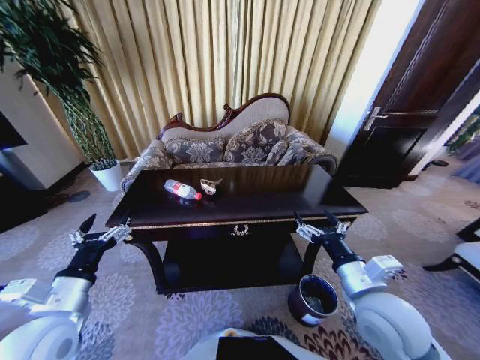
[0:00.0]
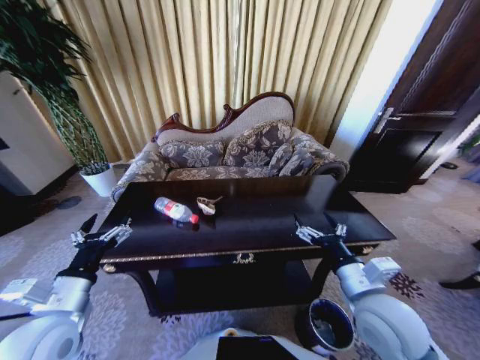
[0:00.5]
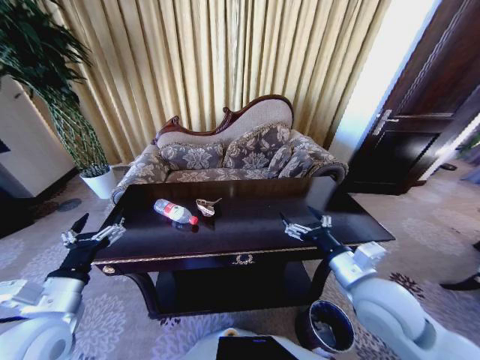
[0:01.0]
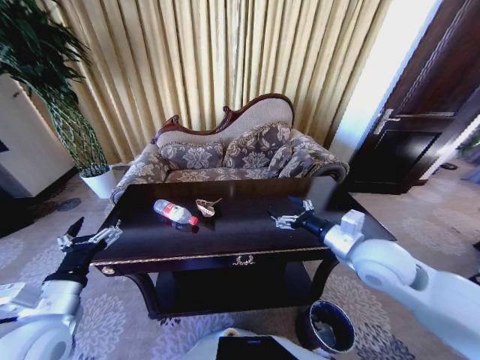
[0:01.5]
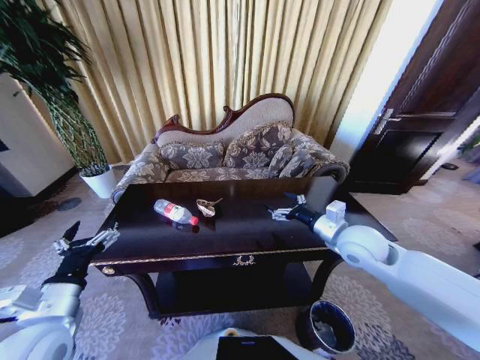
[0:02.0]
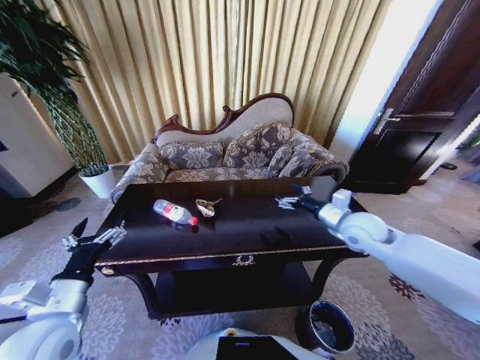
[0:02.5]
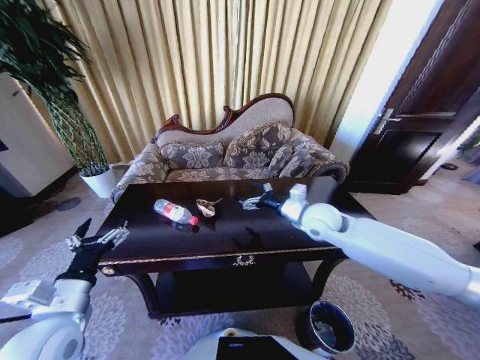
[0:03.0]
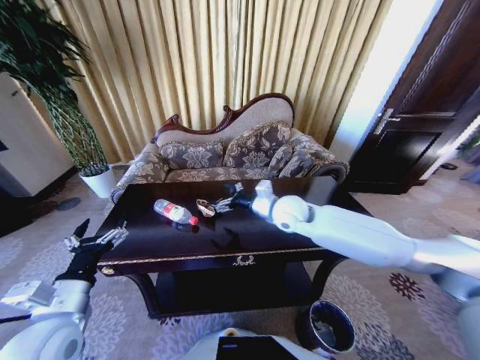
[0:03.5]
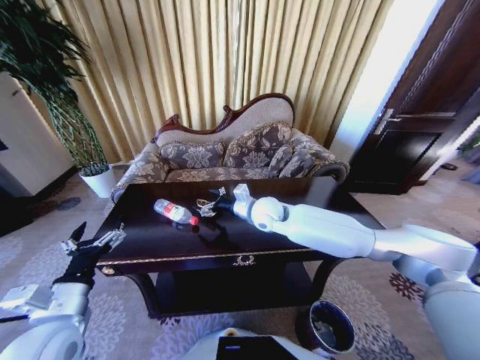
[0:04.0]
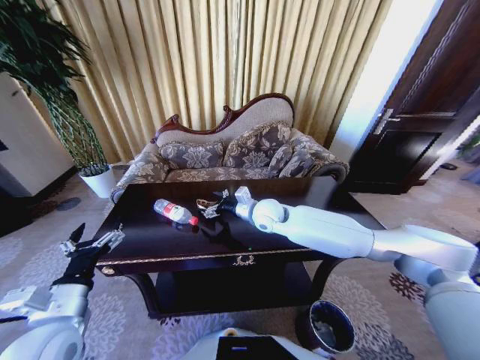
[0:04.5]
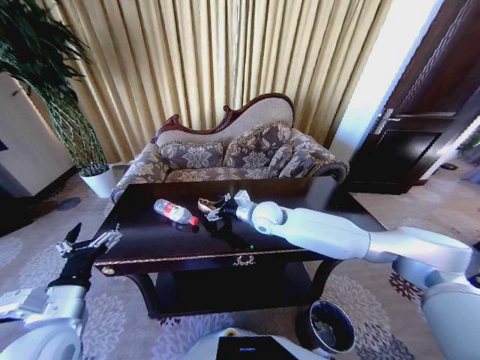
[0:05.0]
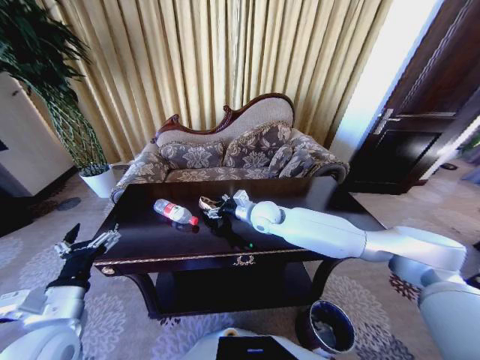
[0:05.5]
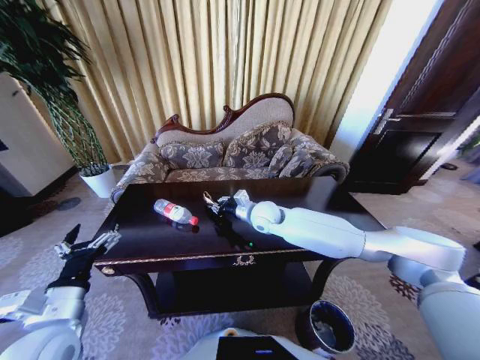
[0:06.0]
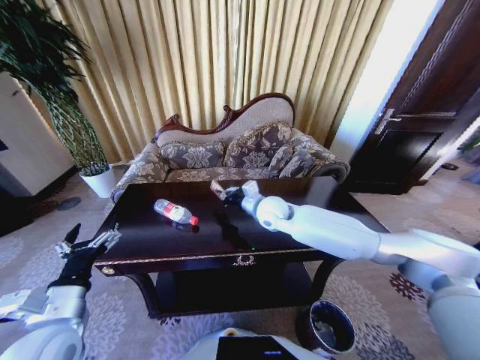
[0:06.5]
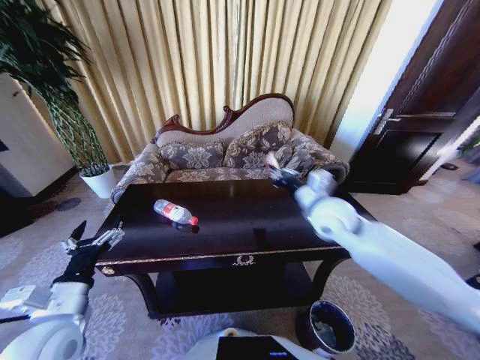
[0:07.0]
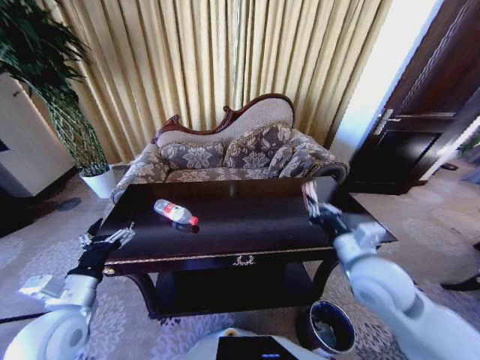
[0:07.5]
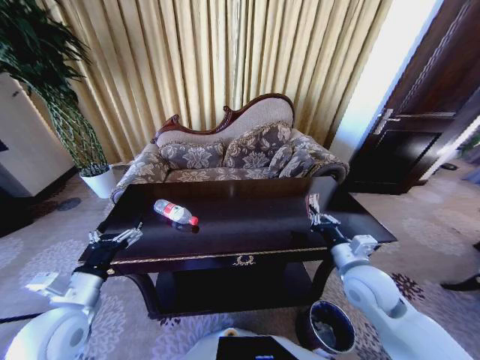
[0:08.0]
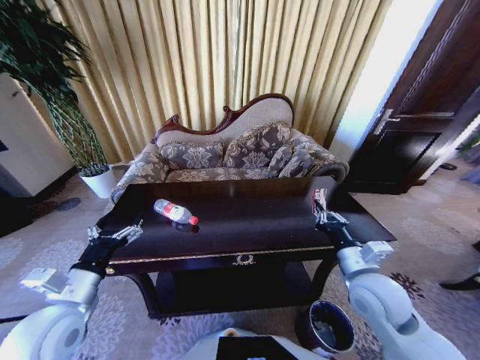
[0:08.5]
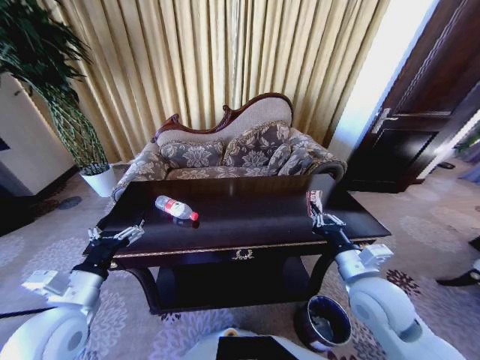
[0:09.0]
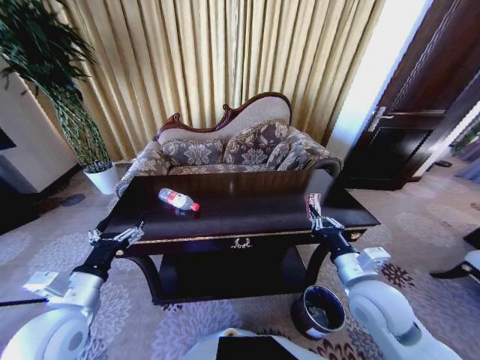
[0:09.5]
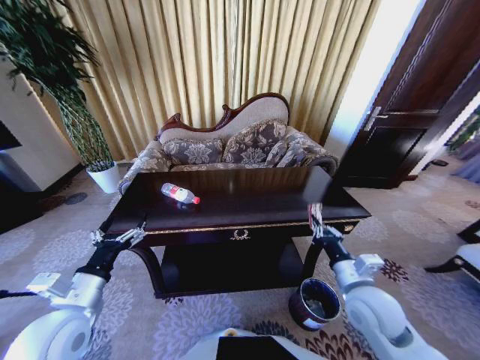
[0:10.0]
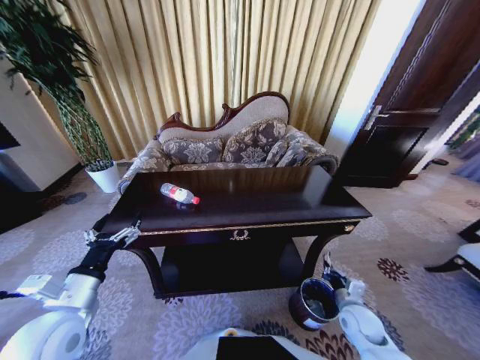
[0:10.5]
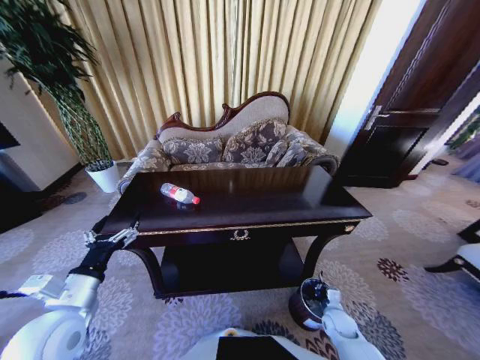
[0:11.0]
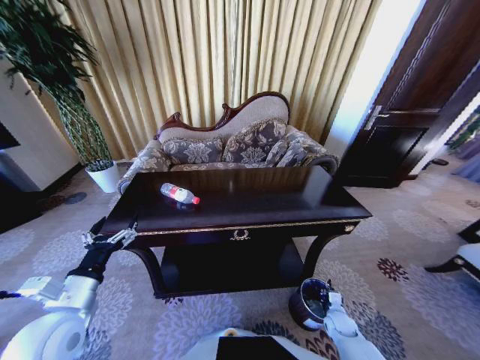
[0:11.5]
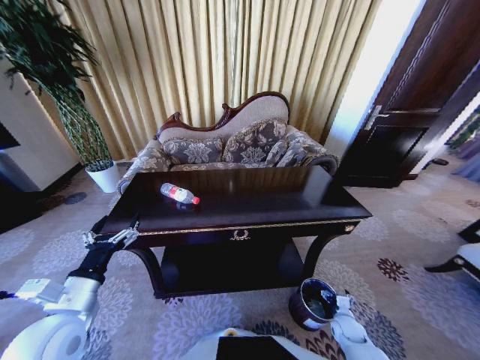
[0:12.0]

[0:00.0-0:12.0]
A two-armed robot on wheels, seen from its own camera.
Task of the whole recording: Move to the front of the table and place the trash on the table into the trash bin.
0:00.0 to 0:02.0: The right gripper heads forward, covering roughly 15 cm.
0:02.0 to 0:04.0: The right gripper travels to the left and forward by about 25 cm.
0:04.0 to 0:06.0: The right gripper closes up.
0:06.0 to 0:08.0: The right gripper moves backward and to the right, approximately 30 cm.
0:08.0 to 0:10.0: The right gripper ends up roughly 5 cm from where it was.
0:10.0 to 0:12.0: The right gripper heads downward, covering some 30 cm, and opens up.

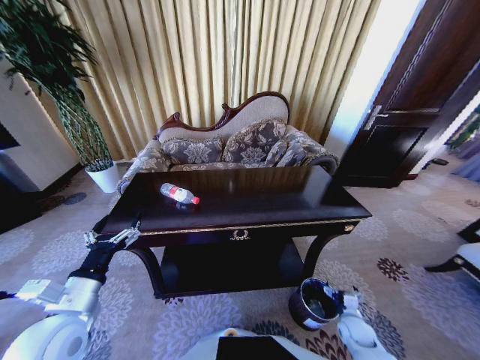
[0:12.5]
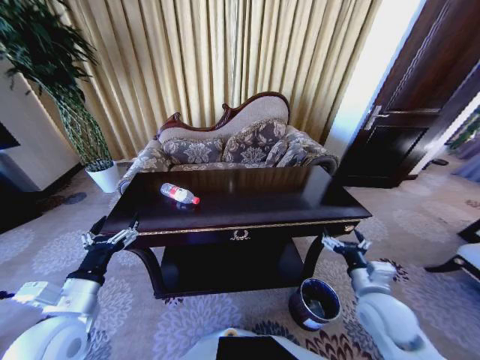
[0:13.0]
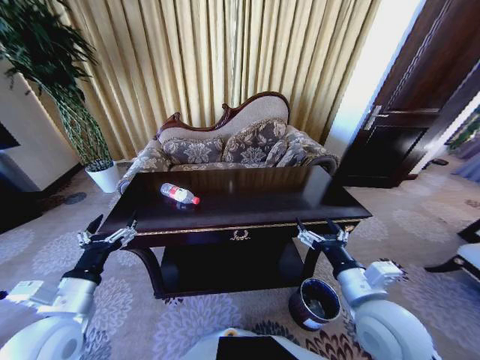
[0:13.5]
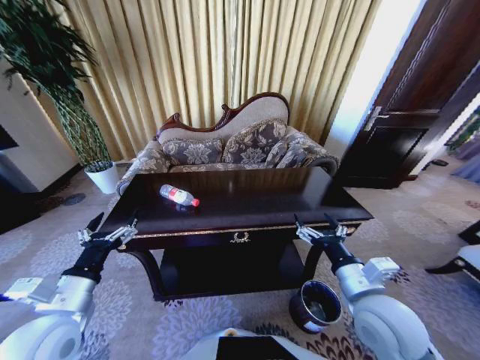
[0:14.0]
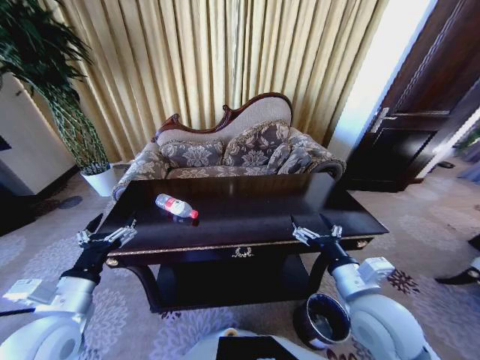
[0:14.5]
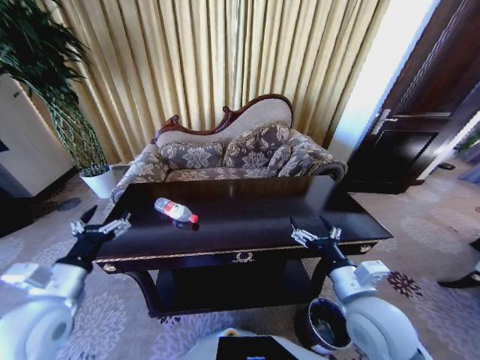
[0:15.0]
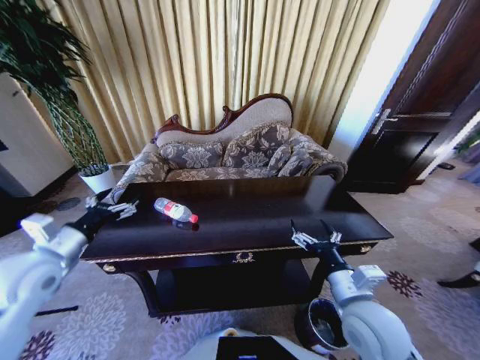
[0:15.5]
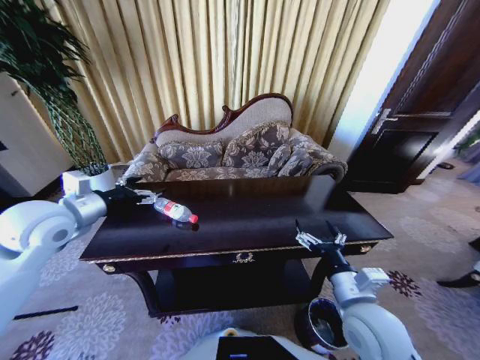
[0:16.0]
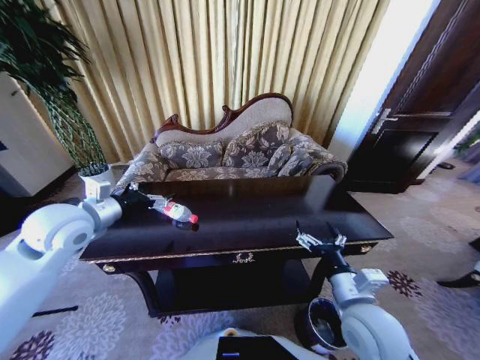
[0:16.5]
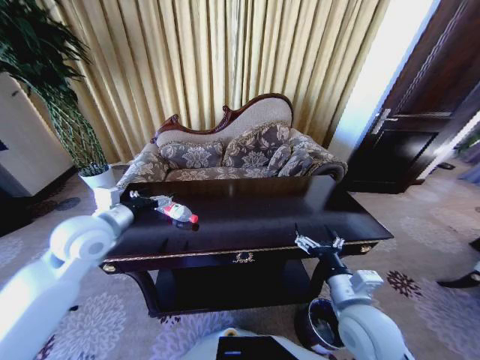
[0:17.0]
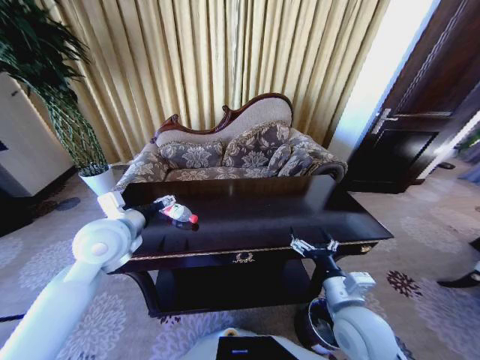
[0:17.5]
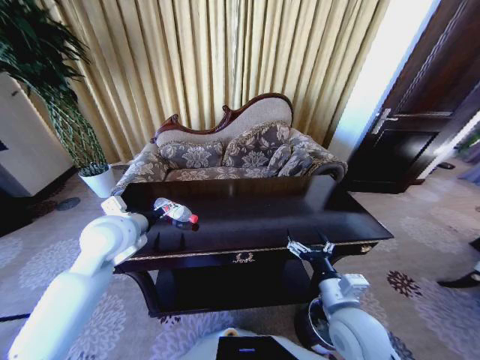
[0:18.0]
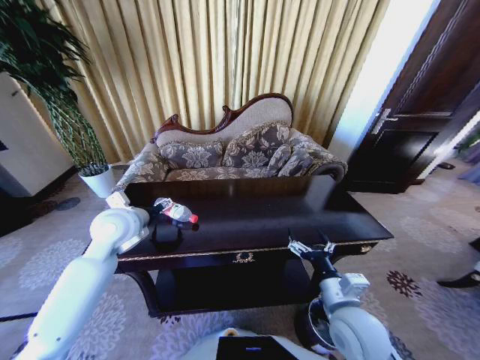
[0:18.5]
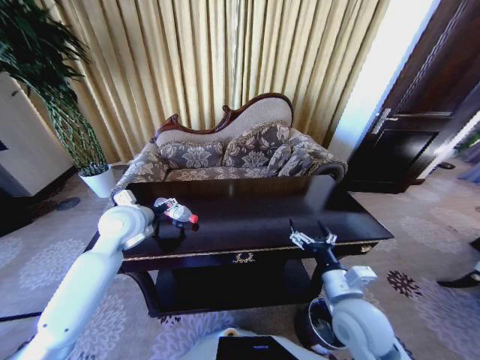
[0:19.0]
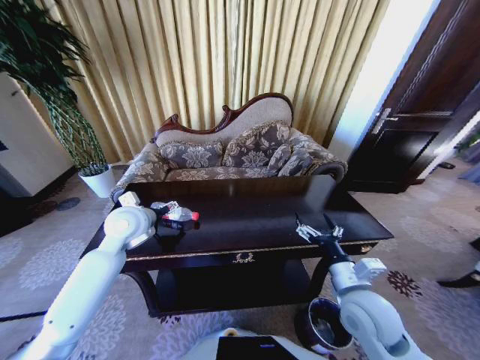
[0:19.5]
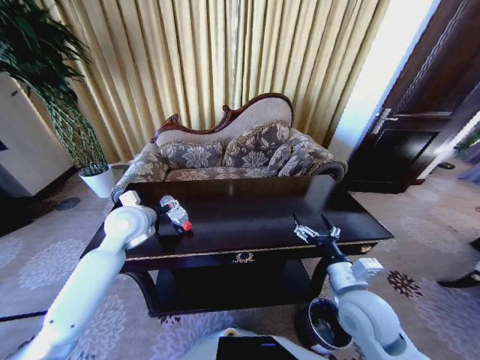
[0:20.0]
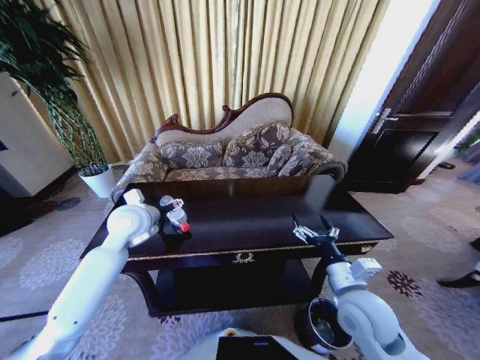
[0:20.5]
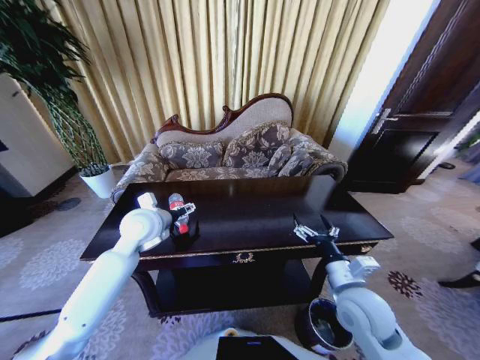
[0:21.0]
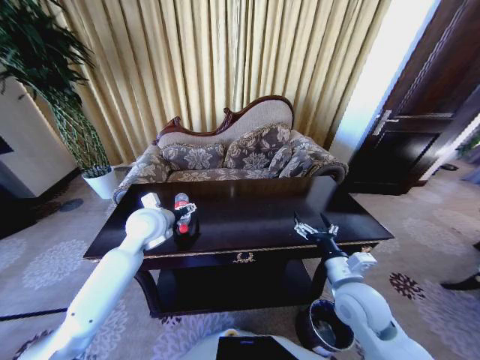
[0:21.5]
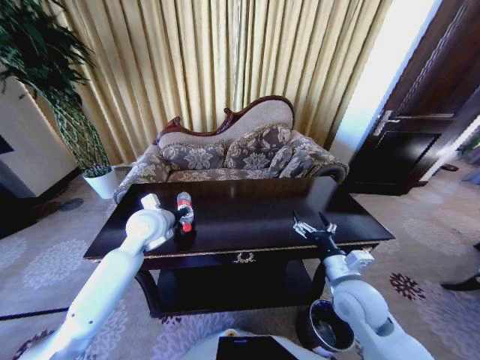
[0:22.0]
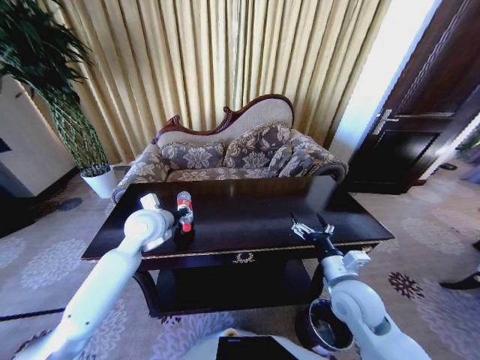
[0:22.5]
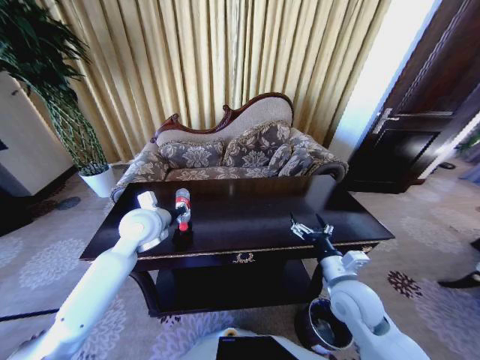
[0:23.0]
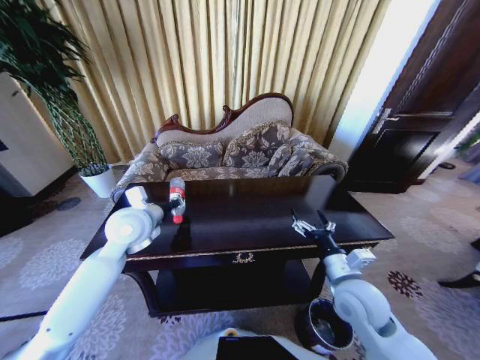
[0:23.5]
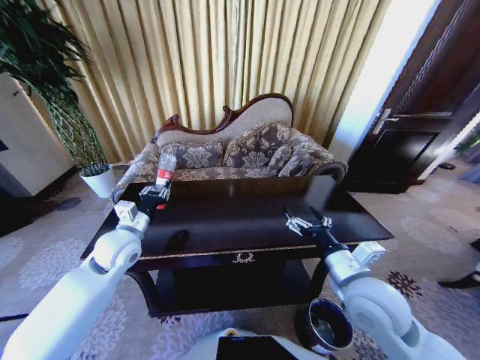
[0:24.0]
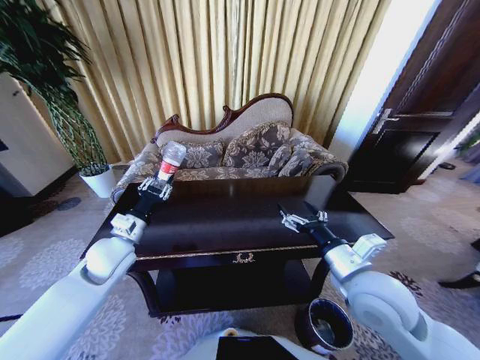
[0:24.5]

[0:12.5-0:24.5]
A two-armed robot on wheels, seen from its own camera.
Task of the whole recording: Move to the front of the table and place the trash on the table into the trash bin.
0:12.5 to 0:14.5: The right gripper shifts some 35 cm upward and to the left.
0:14.5 to 0:16.5: The left gripper heads forward and upward, covering approximately 20 cm.
0:16.5 to 0:18.5: The left gripper goes about 5 cm to the right.
0:18.5 to 0:20.5: The grippers move only a little.
0:20.5 to 0:22.5: The left gripper closes up.
0:22.5 to 0:24.5: The left gripper travels to the left and backward by roughly 10 cm. The right gripper moves upward, approximately 10 cm.

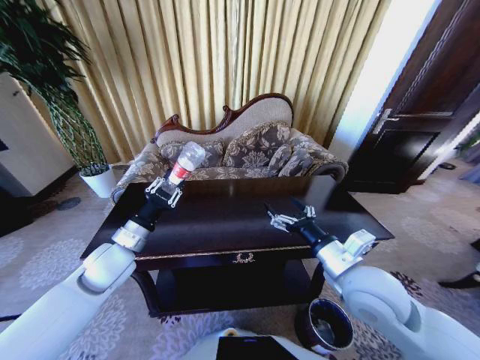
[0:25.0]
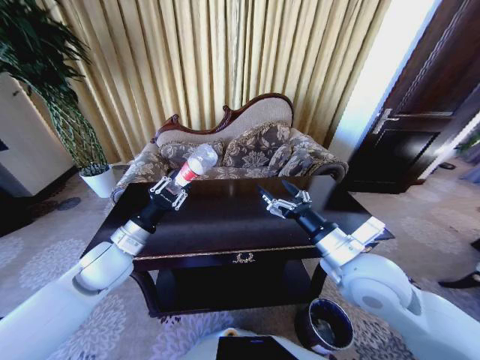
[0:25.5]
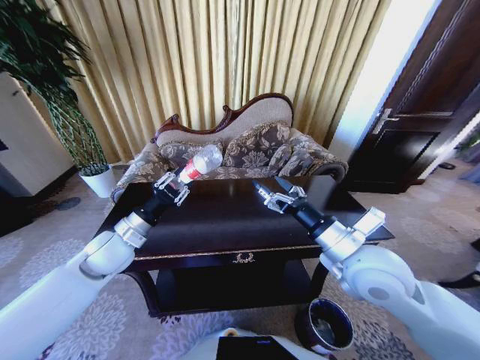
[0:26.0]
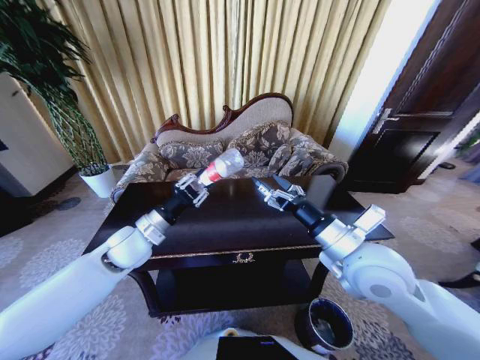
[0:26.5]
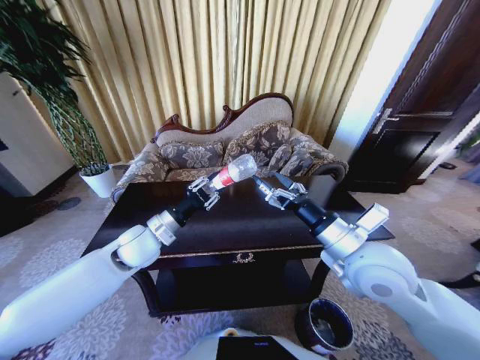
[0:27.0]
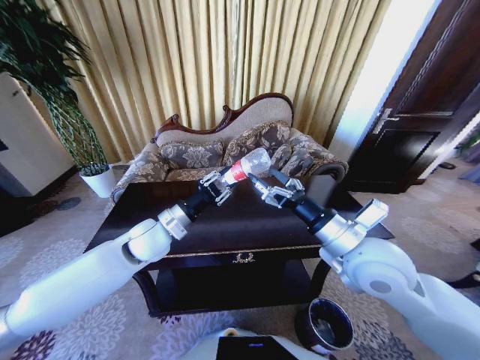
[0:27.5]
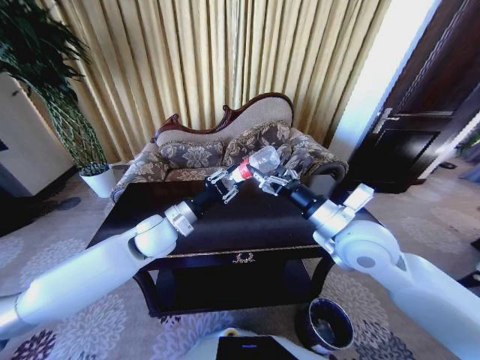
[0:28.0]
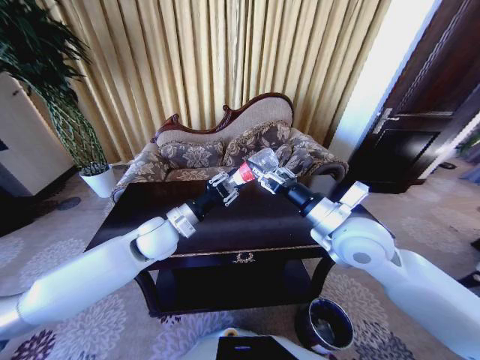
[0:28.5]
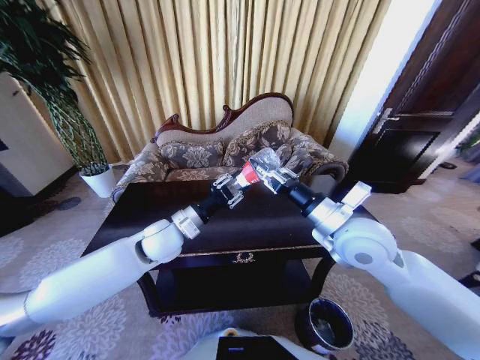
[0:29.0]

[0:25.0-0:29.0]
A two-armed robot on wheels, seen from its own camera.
Task of the whole recording: Move to the front of the table and place the trash on the table into the trash bin.
0:25.0 to 0:27.0: The right gripper ends up some 5 cm from where it was; the left gripper heads to the right, covering about 5 cm.
0:27.0 to 0:29.0: The left gripper moves to the right, approximately 5 cm, while the right gripper ends up some 5 cm from where it was, and closes its fingers.
